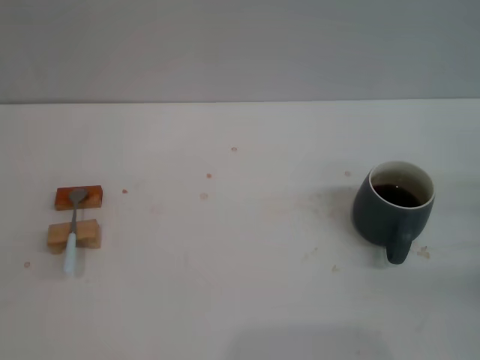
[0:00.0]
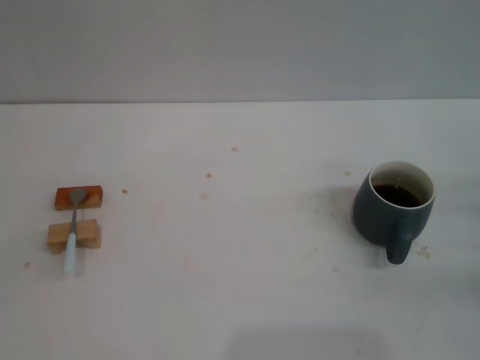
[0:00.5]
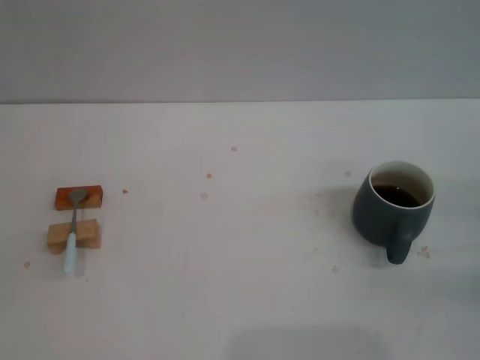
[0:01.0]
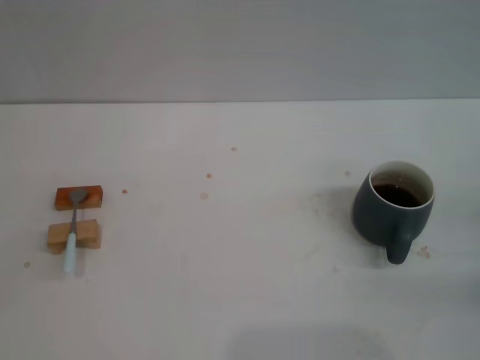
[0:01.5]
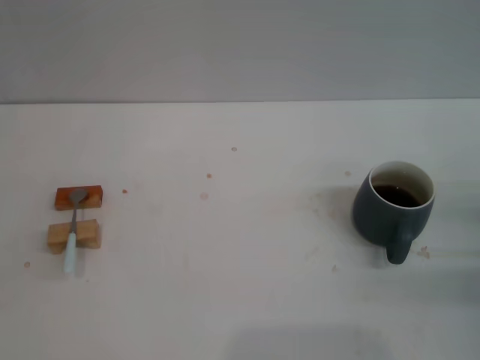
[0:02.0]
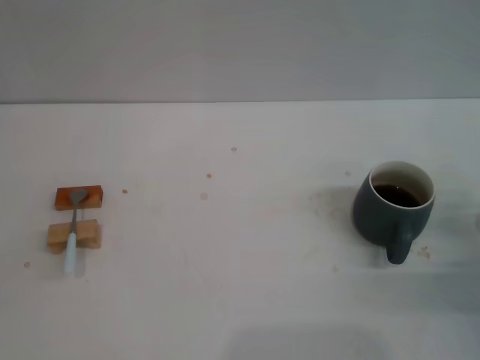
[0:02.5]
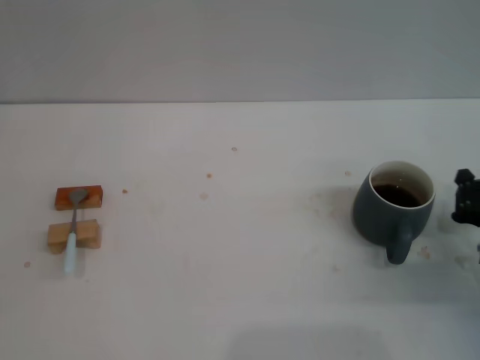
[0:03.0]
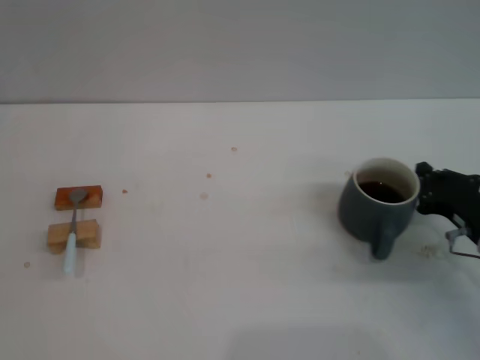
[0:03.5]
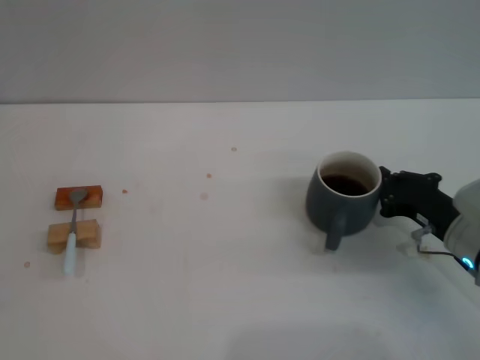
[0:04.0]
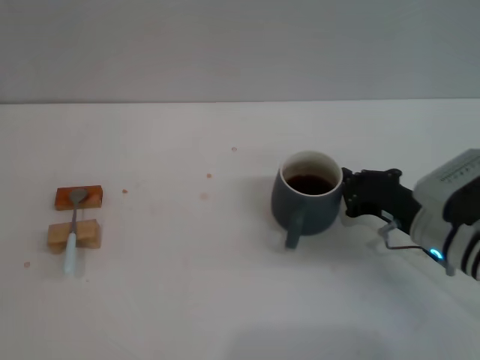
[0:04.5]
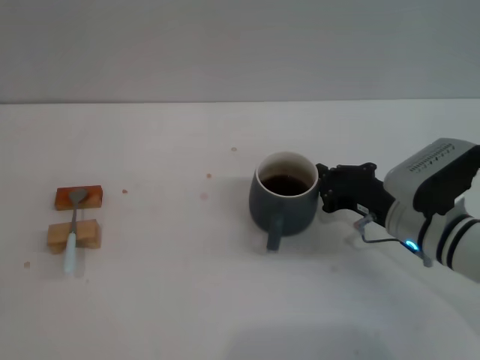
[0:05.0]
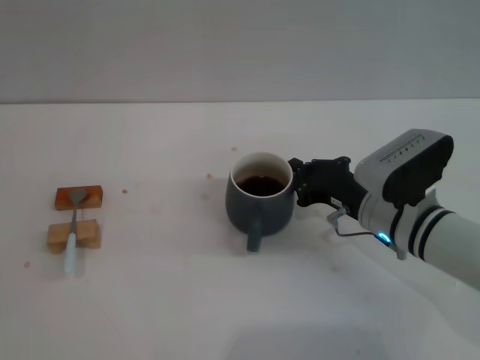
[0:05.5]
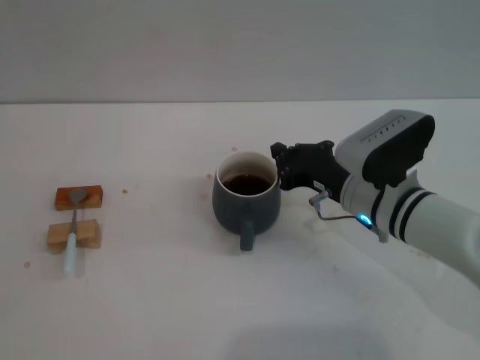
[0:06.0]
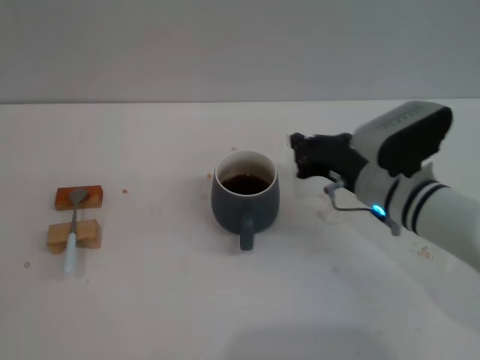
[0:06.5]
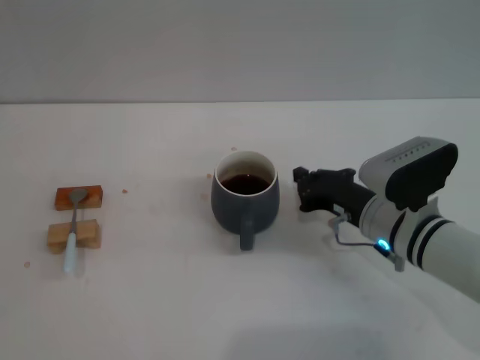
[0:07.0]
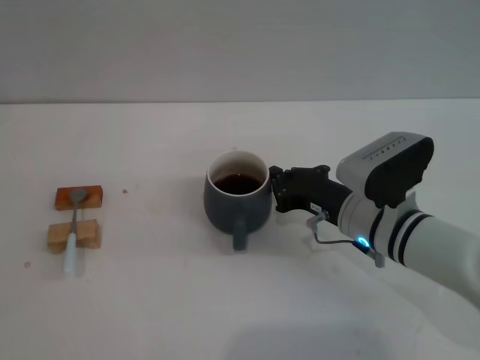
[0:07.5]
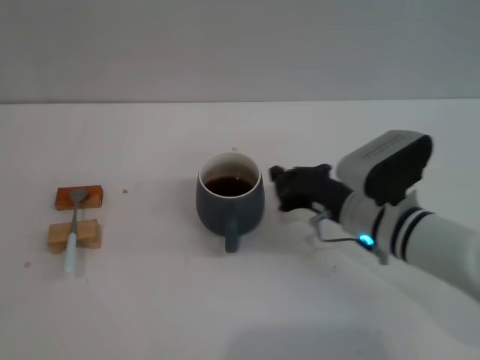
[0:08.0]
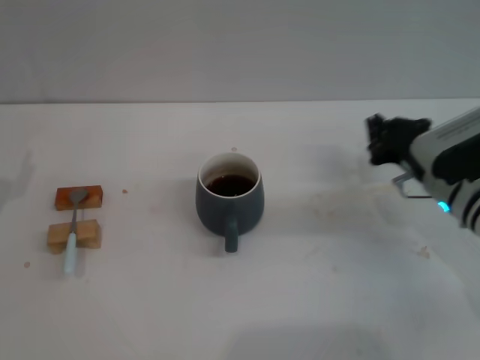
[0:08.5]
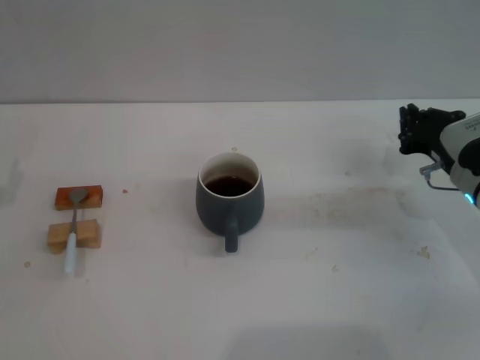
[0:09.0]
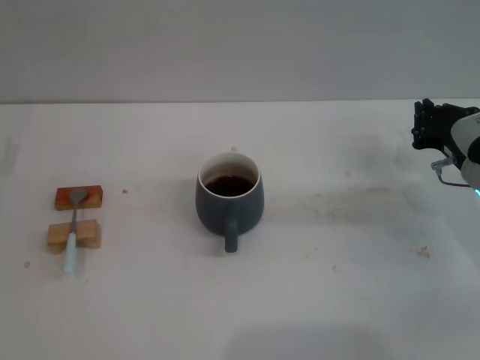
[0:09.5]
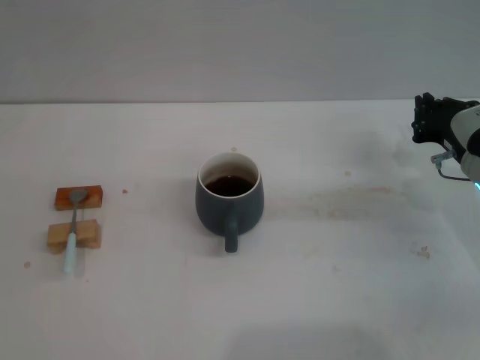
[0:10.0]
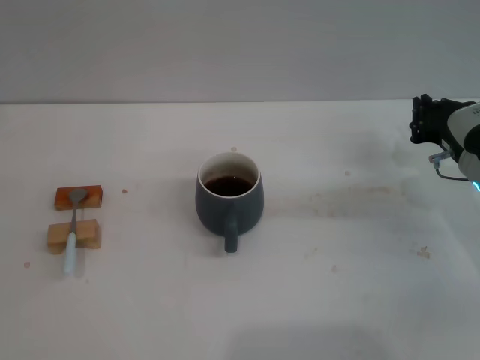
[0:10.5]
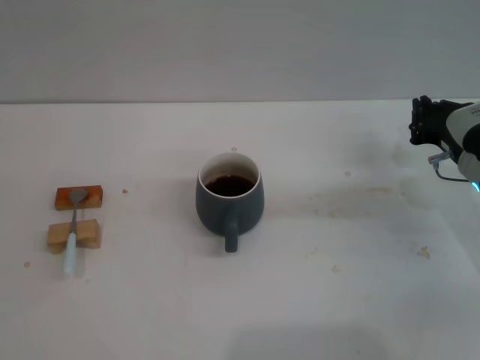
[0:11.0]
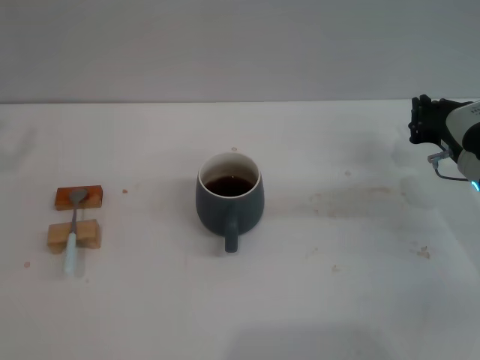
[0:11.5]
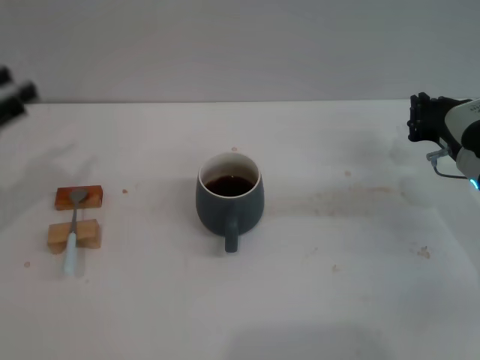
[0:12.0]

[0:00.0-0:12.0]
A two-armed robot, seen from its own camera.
Task of the whole recording: Move the grey cup to the center, lift the blue spoon, stir it three times in the cup, and put the spoon into the cup.
Step, 0:00.0 to 0:09.0: Move the cup with coffee to the center of view with the right gripper.
0:02.0 to 0:04.0: The right gripper goes roughly 10 cm to the left.
0:04.0 to 0:06.0: The right gripper heads to the left, covering roughly 10 cm.
0:06.0 to 0:08.0: The grippers stay close to where they were, moving slightly.
0:08.0 to 0:10.0: The left gripper is displaced forward by roughly 10 cm. The right gripper heads to the right, covering about 10 cm.
0:10.0 to 0:12.0: The left gripper heads upward, covering roughly 5 cm.

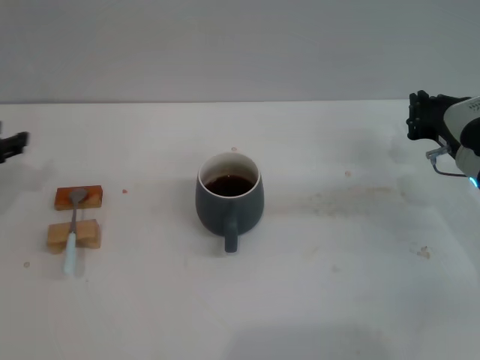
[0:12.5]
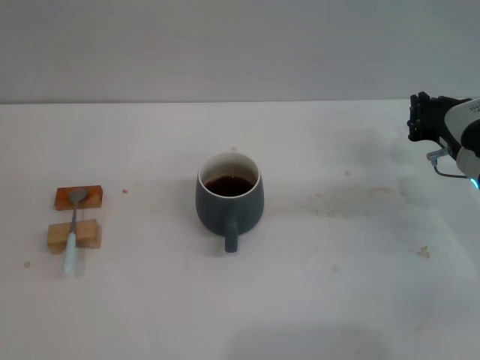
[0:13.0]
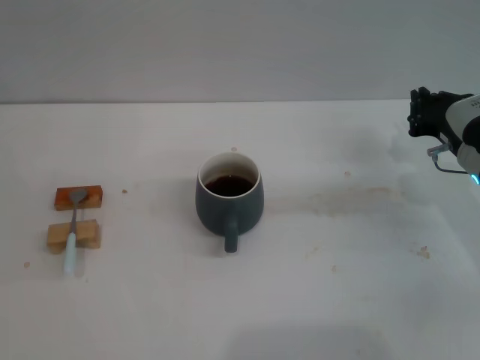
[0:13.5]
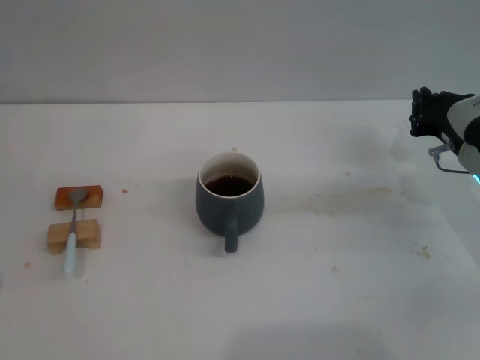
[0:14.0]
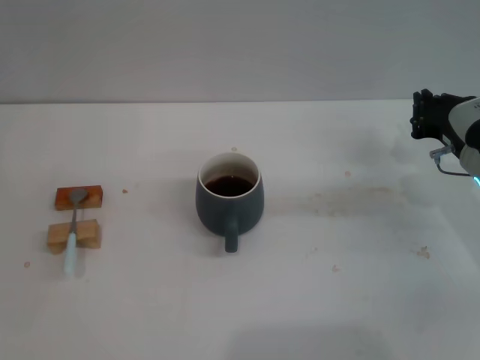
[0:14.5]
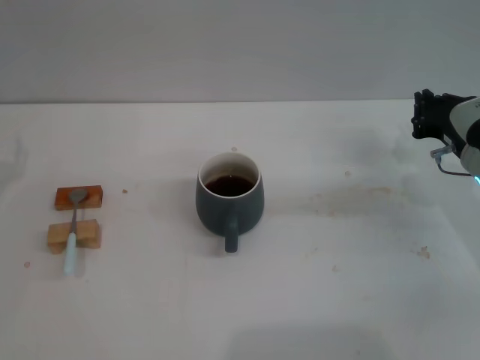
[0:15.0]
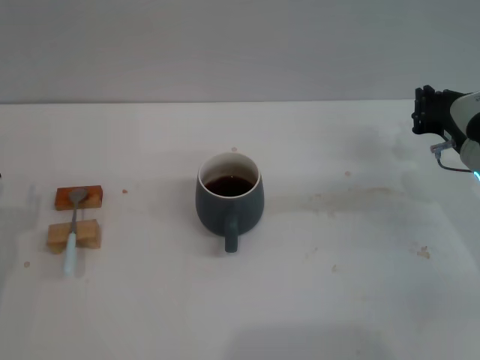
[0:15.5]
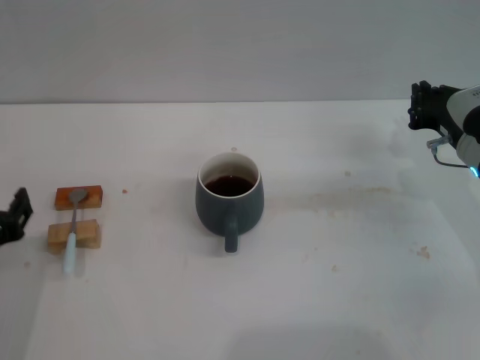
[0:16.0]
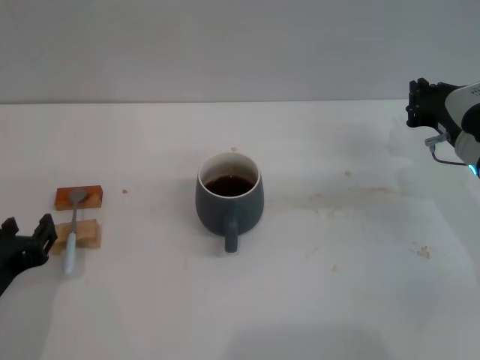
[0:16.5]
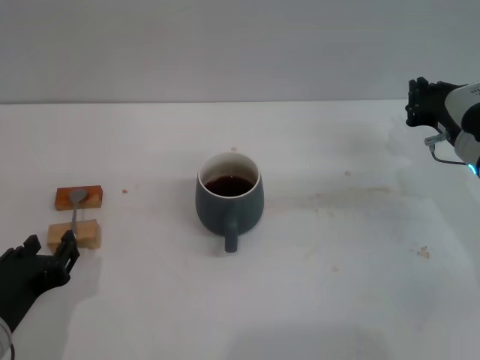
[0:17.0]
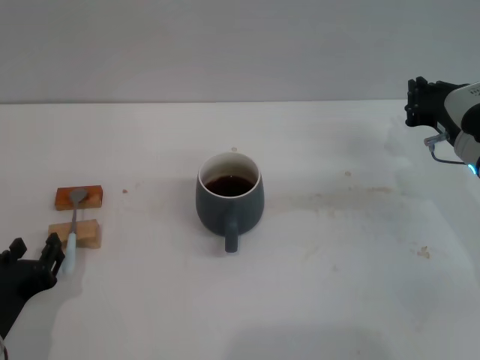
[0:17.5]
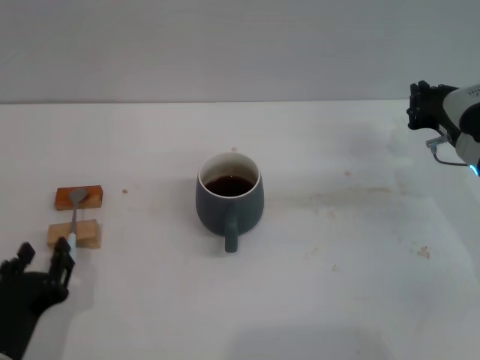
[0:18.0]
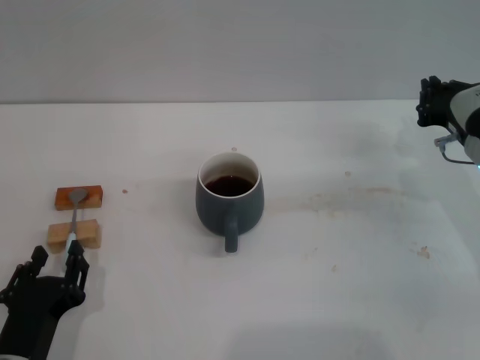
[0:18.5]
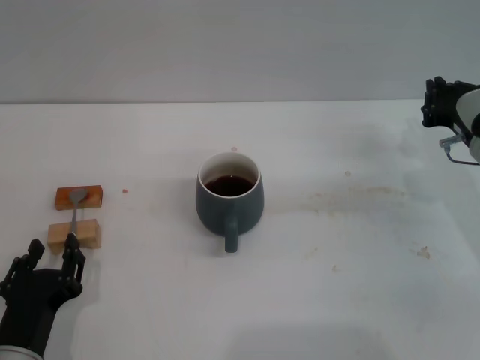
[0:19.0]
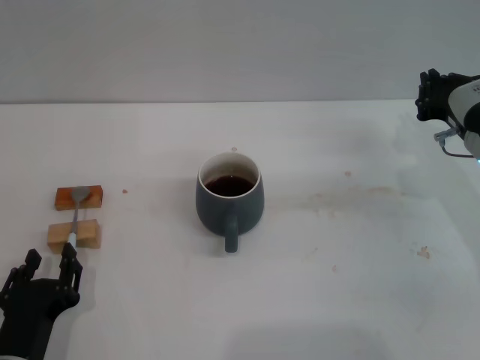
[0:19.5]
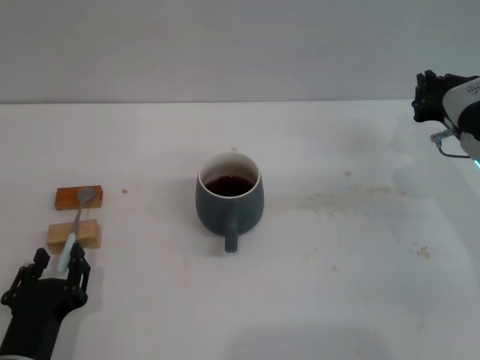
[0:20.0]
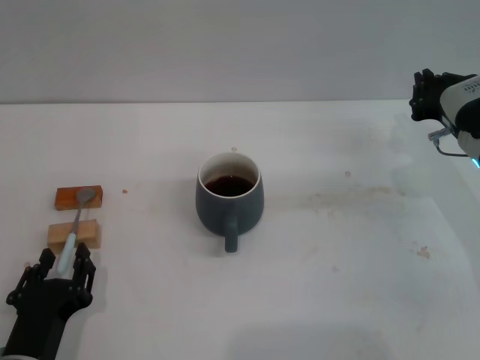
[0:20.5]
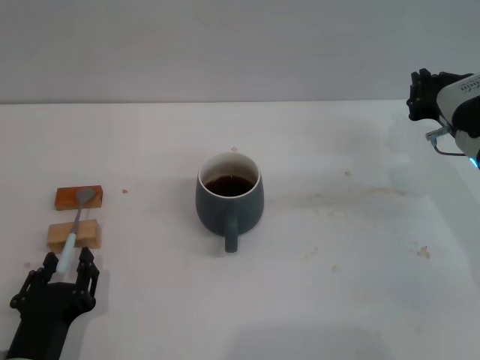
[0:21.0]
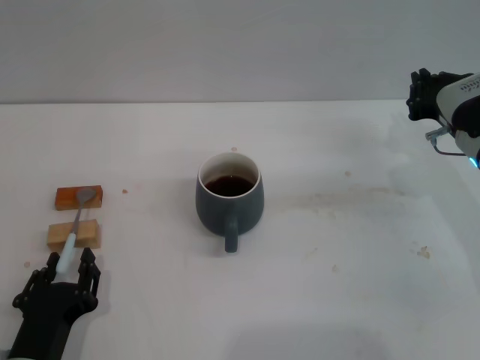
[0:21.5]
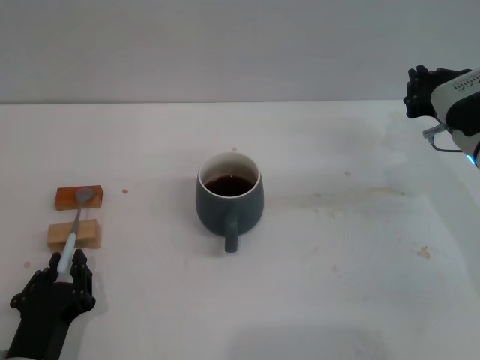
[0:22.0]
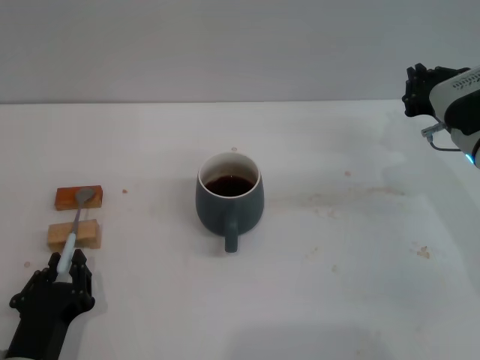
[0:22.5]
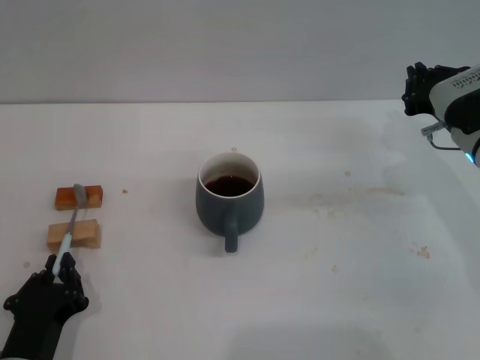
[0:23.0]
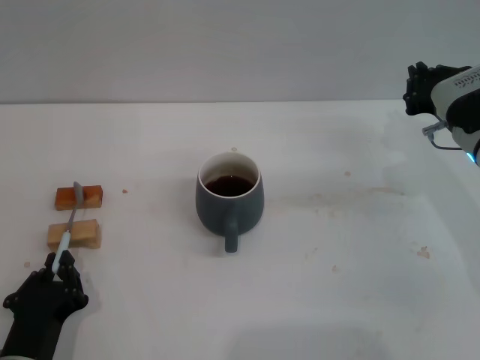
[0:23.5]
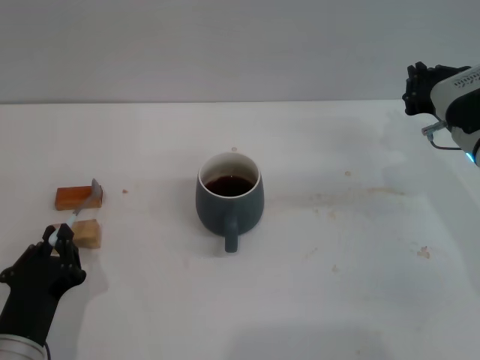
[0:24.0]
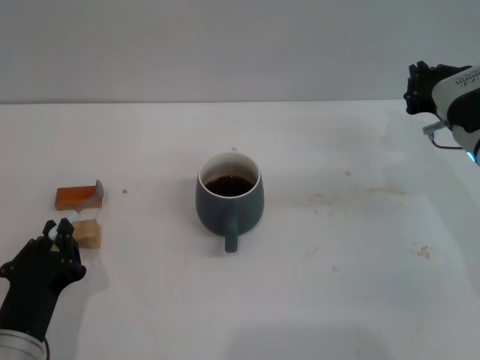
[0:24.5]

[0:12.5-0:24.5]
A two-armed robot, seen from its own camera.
Task of the whole recording: Move the grey cup to the center, lift the blue spoon, stir it three times in the cup, and put the spoon into the cup.
0:14.5 to 0:16.5: The left gripper heads backward and to the right, covering some 20 cm.
0:16.5 to 0:18.5: The left gripper moves downward, roughly 10 cm.
0:18.5 to 0:20.5: Both grippers stay about where they are.
0:20.5 to 0:22.5: The left gripper closes.
0:22.5 to 0:24.5: The grippers move only a little.

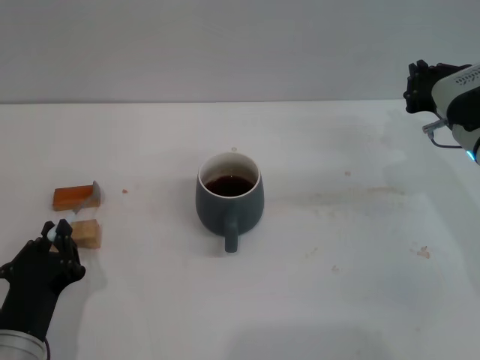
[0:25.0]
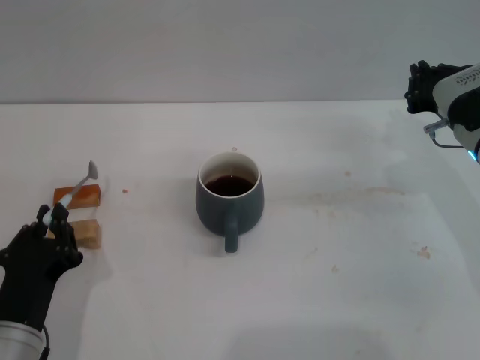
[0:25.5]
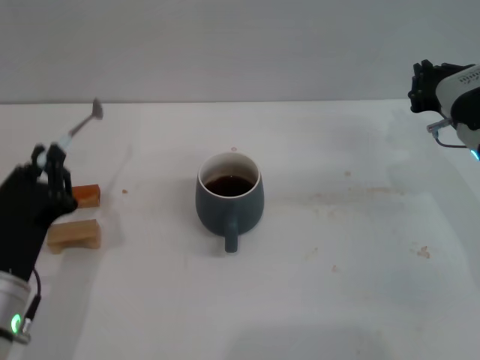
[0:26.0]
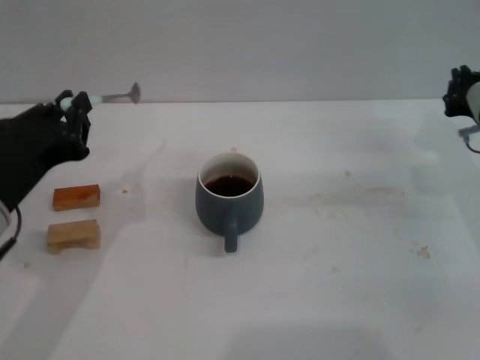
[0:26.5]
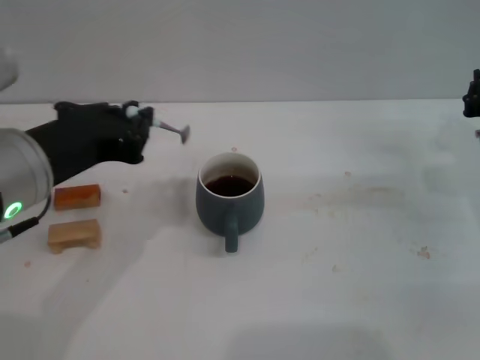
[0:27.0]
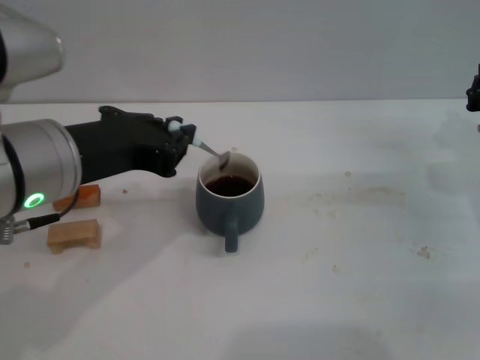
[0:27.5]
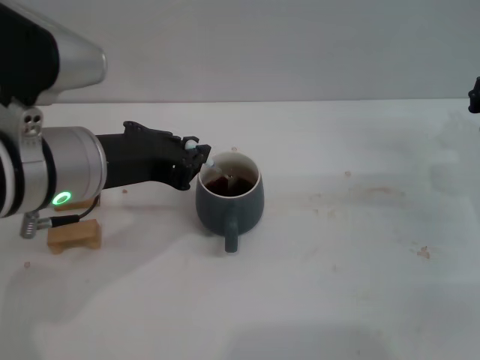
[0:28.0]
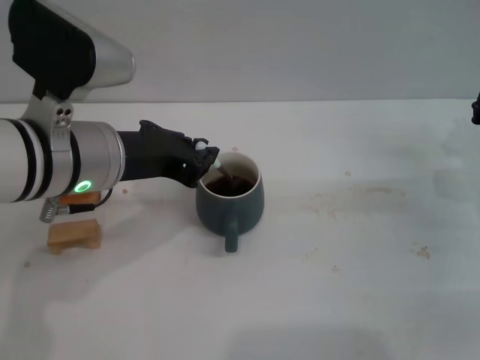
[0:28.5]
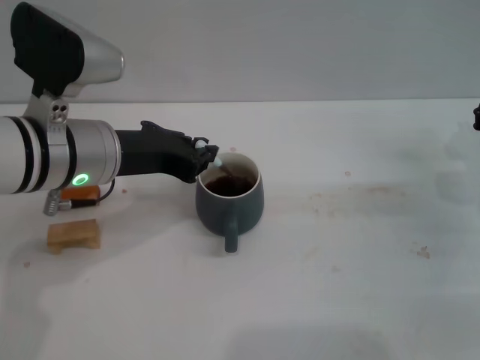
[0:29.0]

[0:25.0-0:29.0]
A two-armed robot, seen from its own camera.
Task of the whole recording: Move the grey cup to the center, lift the blue spoon, stir it three times in the cup, and put the spoon into the cup.
0:25.0 to 0:27.0: The right gripper changes place by roughly 5 cm; the left gripper is displaced upward by about 20 cm.
0:27.0 to 0:29.0: The left gripper heads forward, covering approximately 10 cm.
